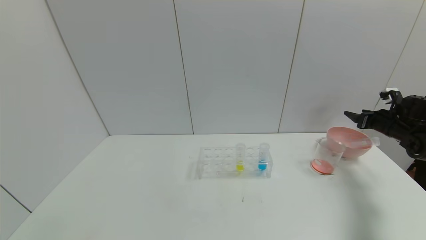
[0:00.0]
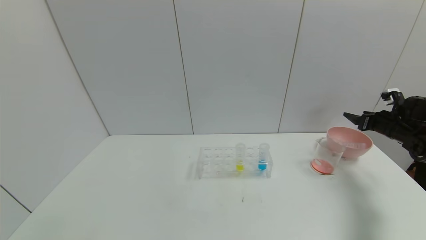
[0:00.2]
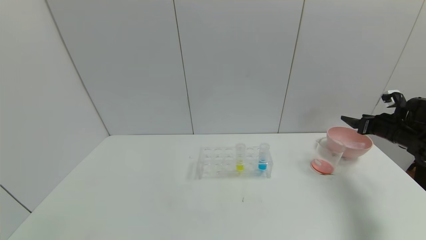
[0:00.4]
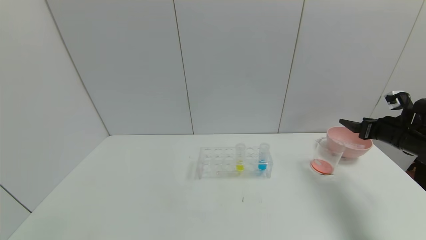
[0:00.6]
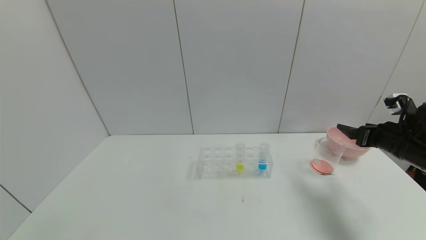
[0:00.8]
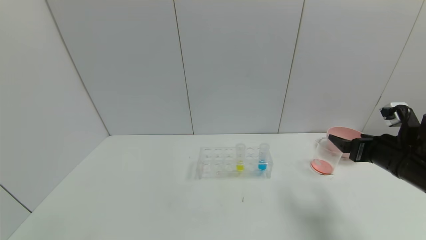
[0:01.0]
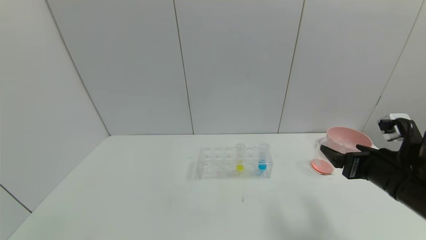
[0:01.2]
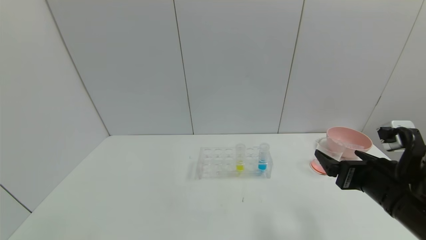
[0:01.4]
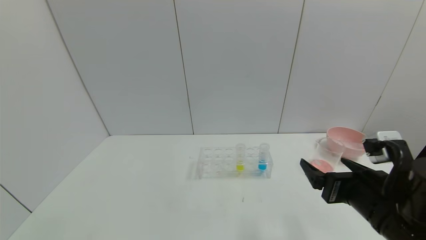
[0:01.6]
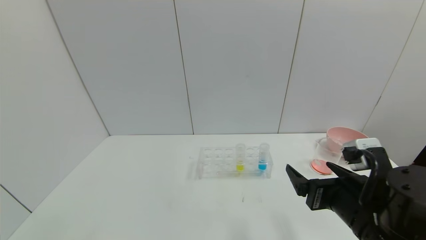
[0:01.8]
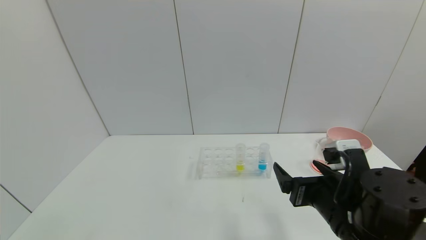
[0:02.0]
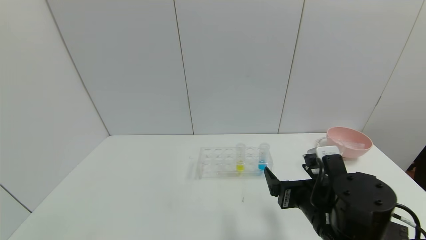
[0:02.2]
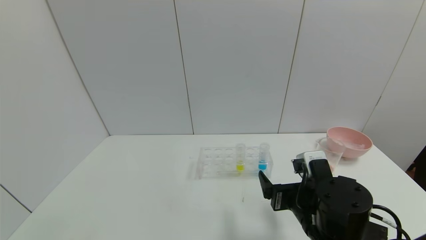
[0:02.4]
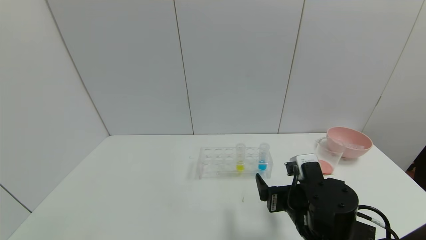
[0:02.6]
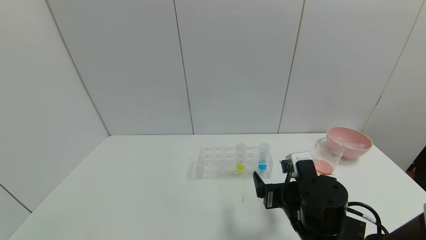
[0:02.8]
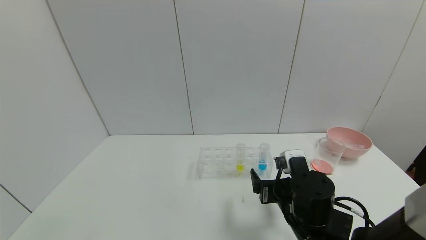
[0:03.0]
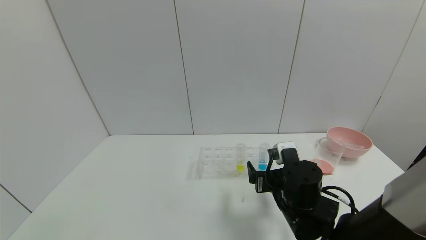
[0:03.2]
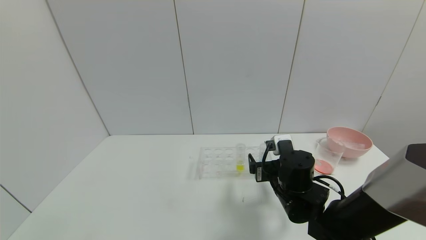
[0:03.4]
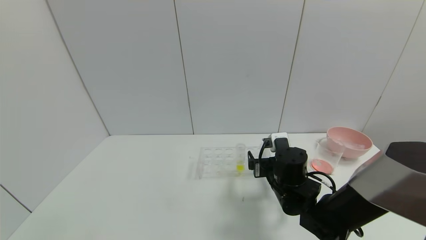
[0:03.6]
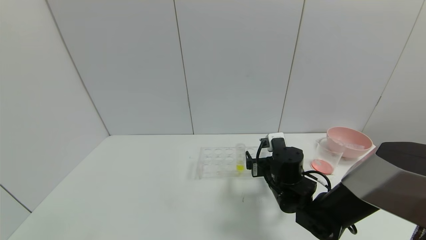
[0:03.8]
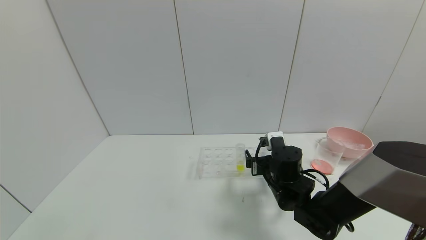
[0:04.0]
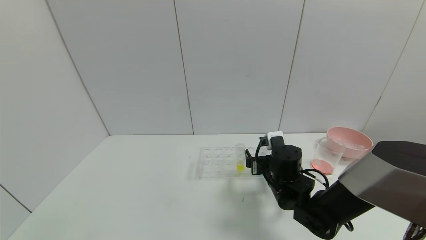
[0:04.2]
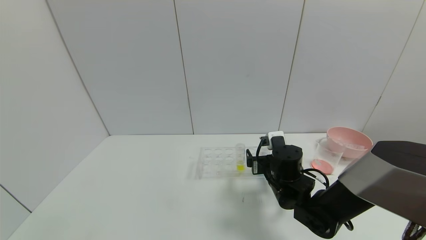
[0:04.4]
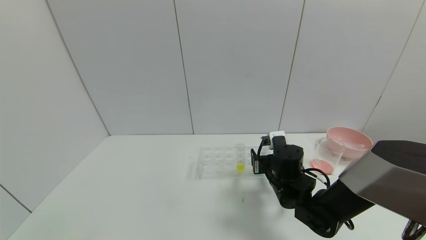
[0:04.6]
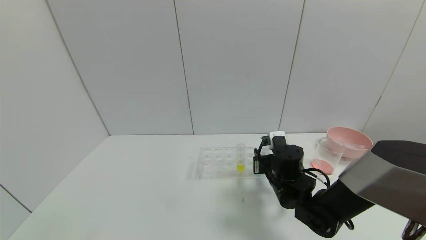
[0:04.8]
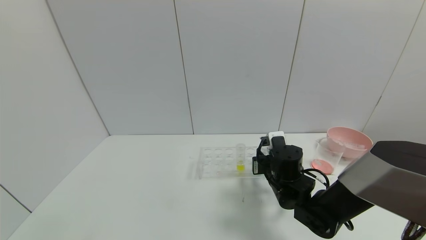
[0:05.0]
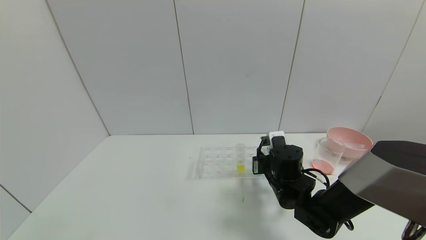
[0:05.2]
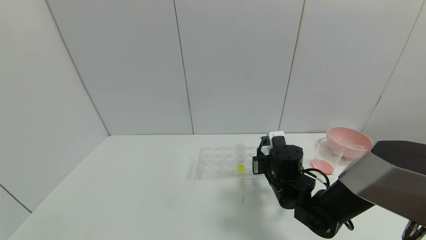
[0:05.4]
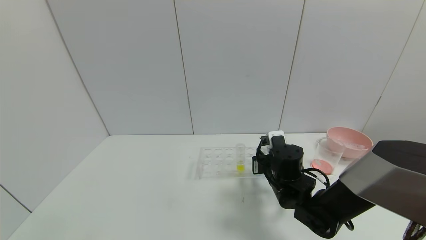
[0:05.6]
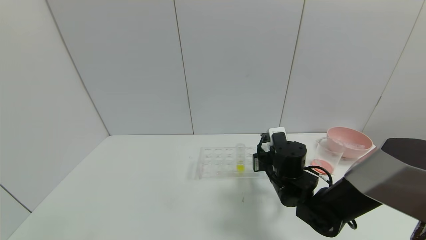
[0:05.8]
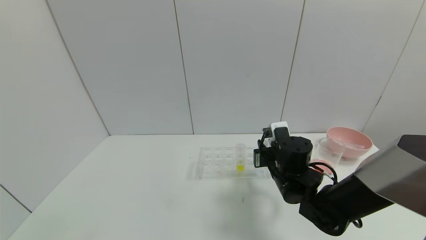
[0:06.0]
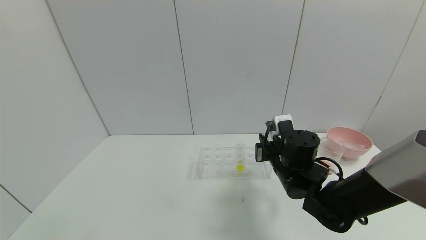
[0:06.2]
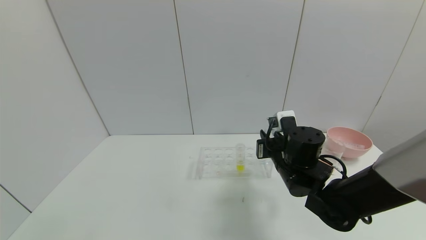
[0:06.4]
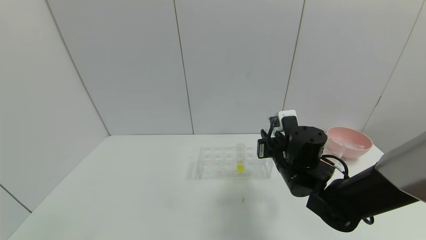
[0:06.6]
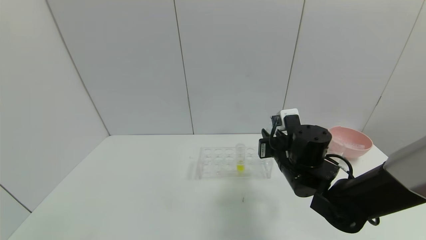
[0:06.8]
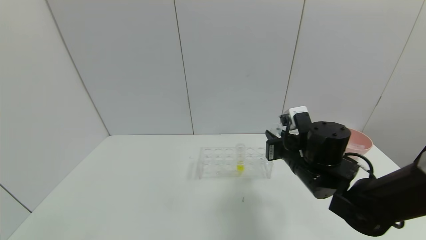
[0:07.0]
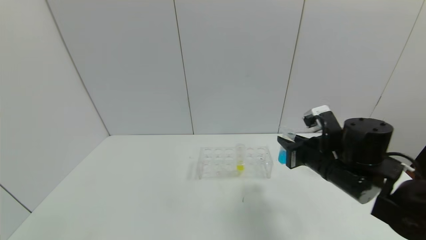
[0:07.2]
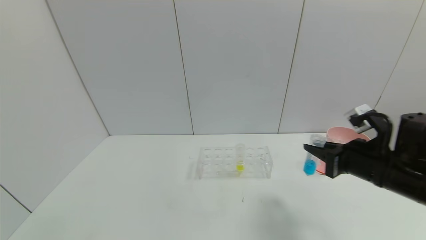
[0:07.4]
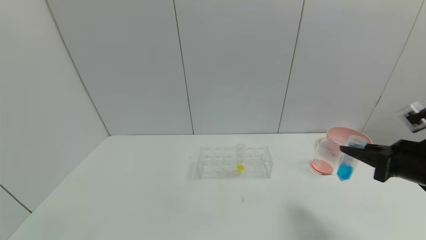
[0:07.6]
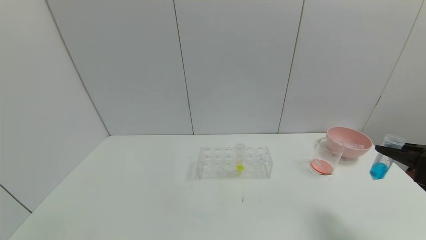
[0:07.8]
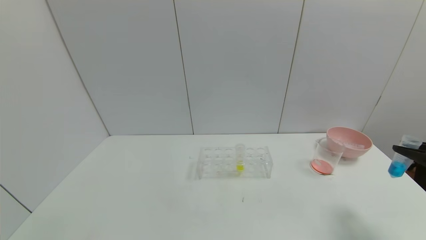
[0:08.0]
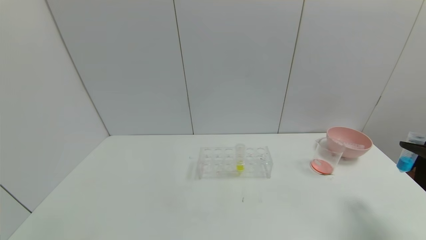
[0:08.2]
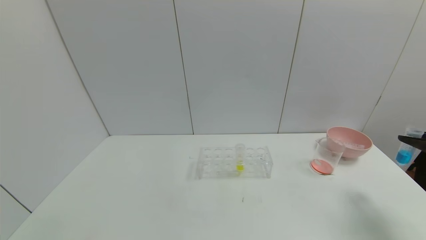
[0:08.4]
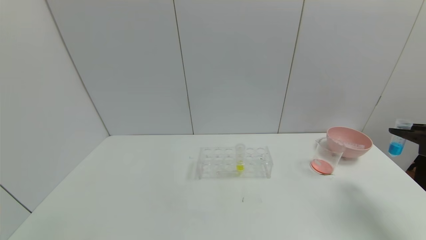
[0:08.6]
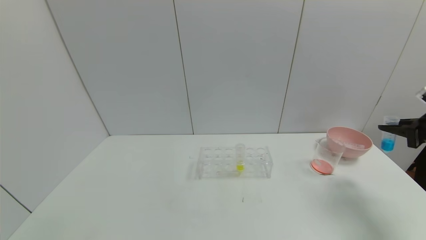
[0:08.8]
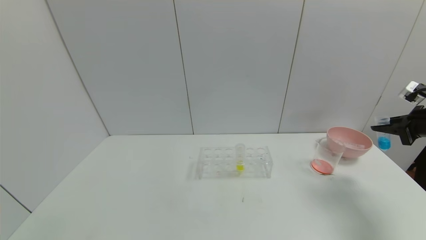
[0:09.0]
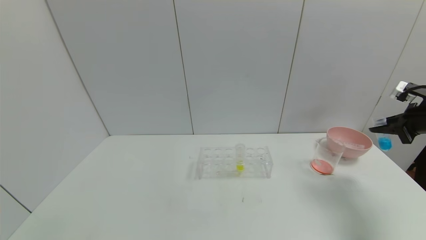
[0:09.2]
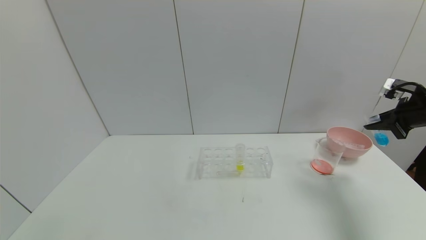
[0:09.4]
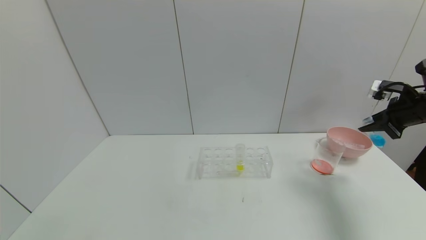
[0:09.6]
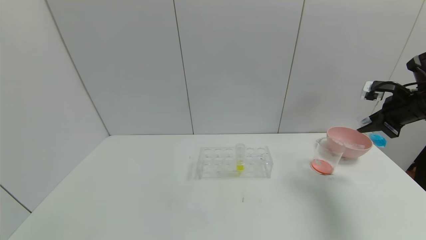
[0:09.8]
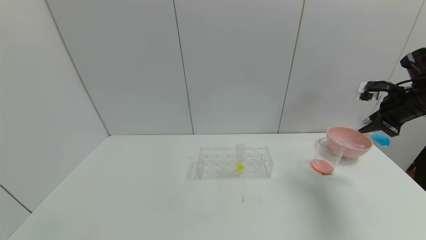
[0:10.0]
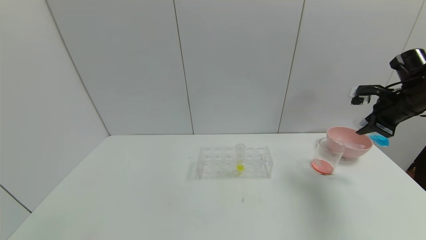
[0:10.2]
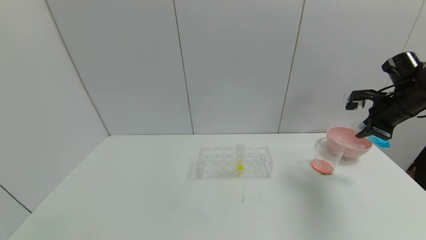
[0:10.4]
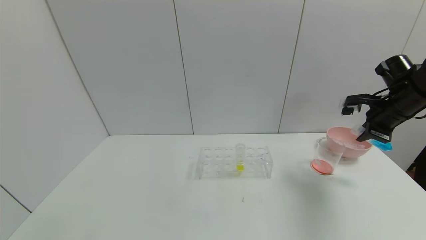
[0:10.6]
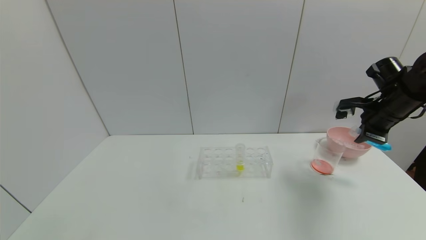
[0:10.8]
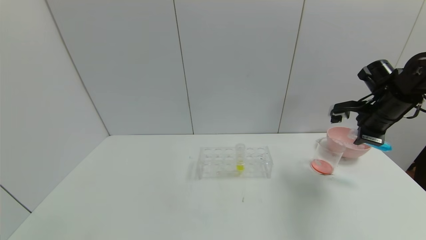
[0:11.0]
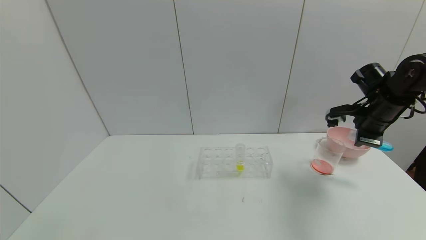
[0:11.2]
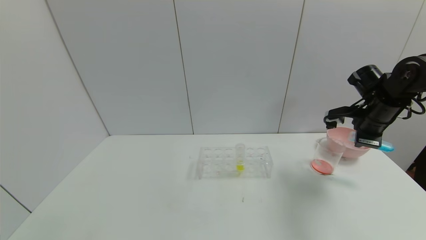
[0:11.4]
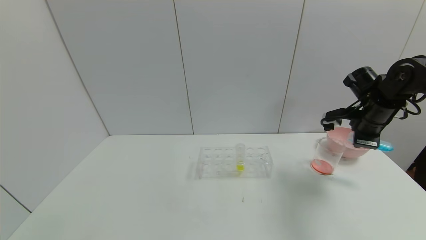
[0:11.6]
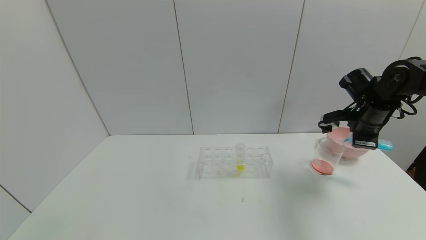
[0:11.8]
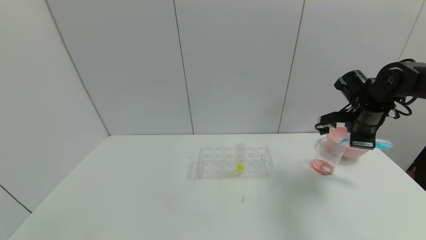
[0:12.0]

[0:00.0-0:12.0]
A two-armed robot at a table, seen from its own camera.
Task of the whole recording: pick up the test tube with red pigment and the test tube with blue pigment by grippers and pour them into the container.
Step, 0:00.4 to 0:05.2: Grasp the blue reagent with the right gripper.
0:00.0 to 0:01.6: The right gripper moves to the left and backward, about 35 cm.
0:01.6 to 0:03.0: The right gripper shifts about 15 cm to the left, downward and forward.
0:03.0 to 0:04.4: The right gripper is displaced forward by about 10 cm.
0:04.4 to 0:06.0: The right gripper closes.
0:06.0 to 0:07.6: The right gripper is displaced to the right, backward and upward by approximately 25 cm.
0:07.6 to 0:09.0: The right gripper is displaced to the right and forward by some 15 cm.
0:09.0 to 0:10.4: The right gripper goes roughly 10 cm to the left and forward.
0:10.4 to 0:12.0: The right gripper shifts about 5 cm to the left.

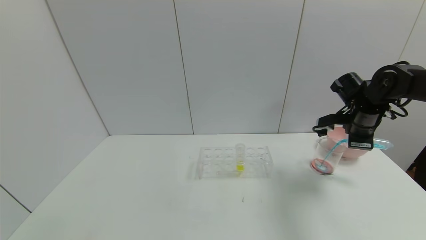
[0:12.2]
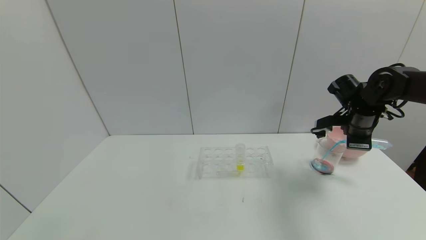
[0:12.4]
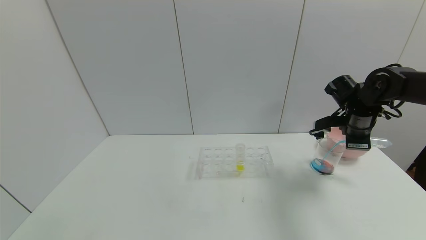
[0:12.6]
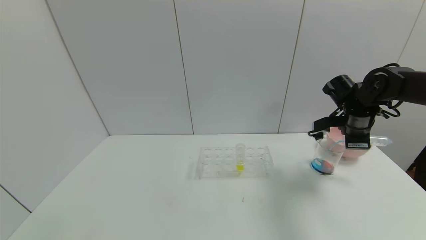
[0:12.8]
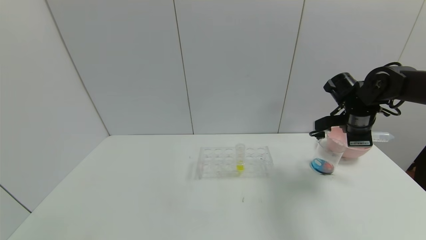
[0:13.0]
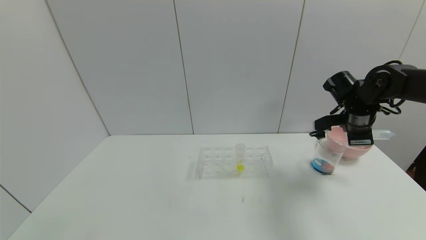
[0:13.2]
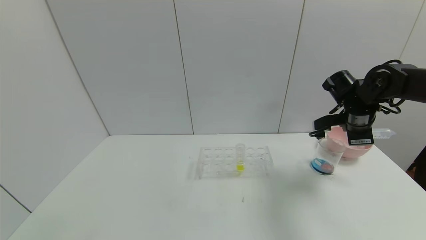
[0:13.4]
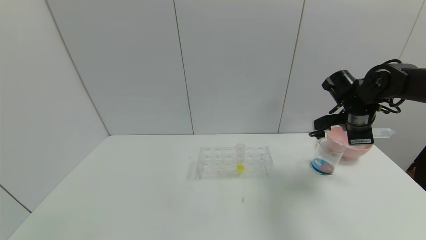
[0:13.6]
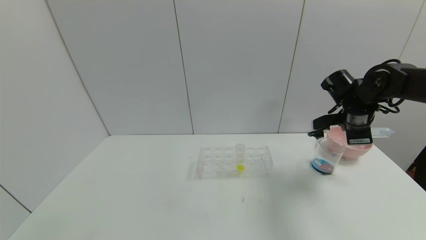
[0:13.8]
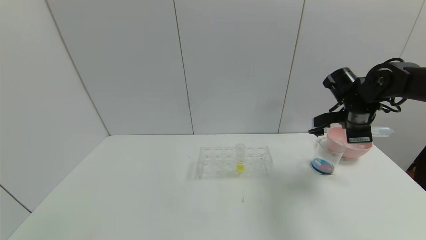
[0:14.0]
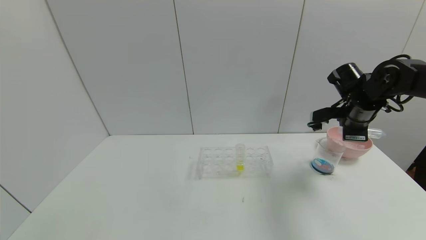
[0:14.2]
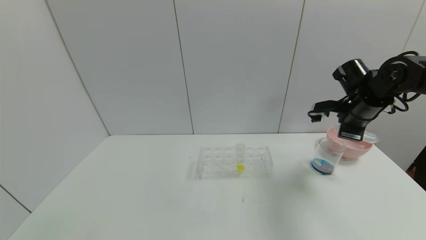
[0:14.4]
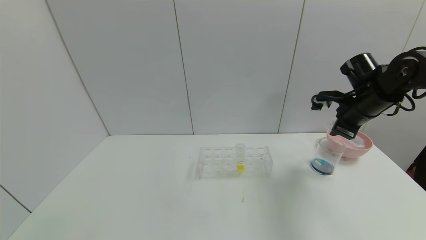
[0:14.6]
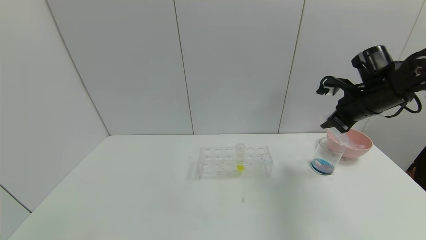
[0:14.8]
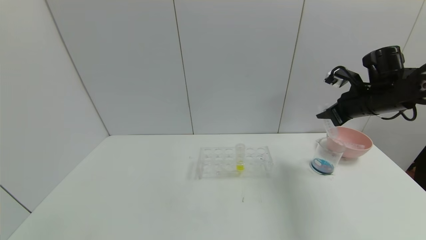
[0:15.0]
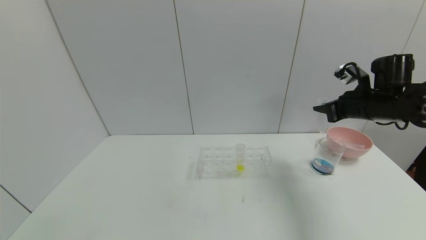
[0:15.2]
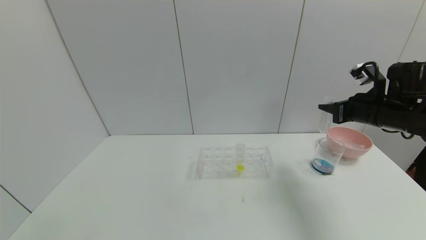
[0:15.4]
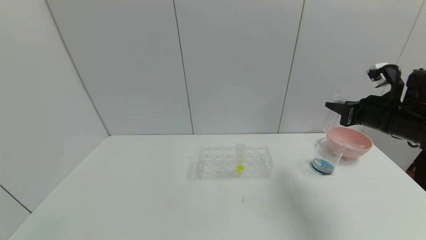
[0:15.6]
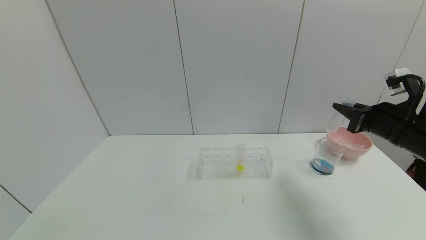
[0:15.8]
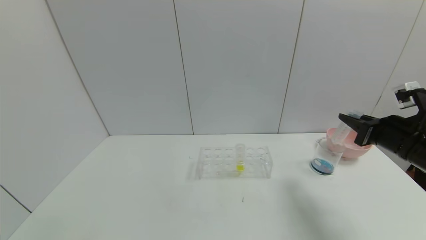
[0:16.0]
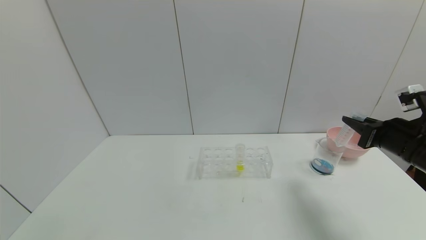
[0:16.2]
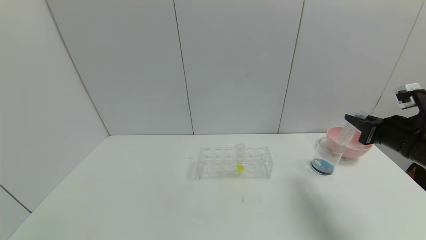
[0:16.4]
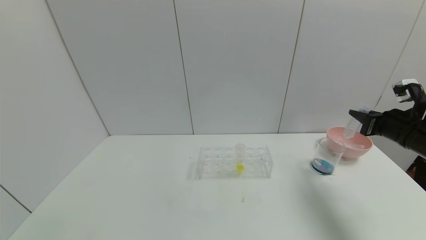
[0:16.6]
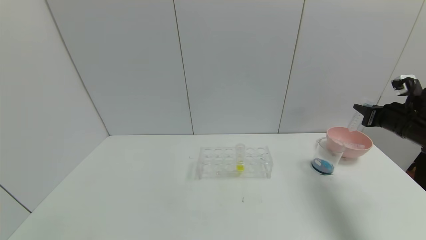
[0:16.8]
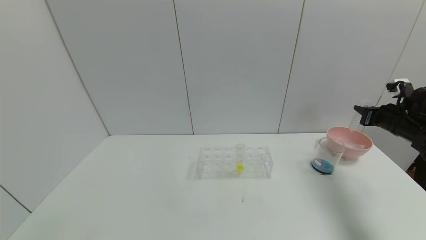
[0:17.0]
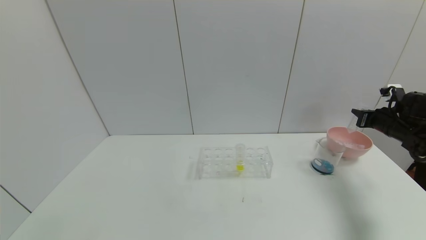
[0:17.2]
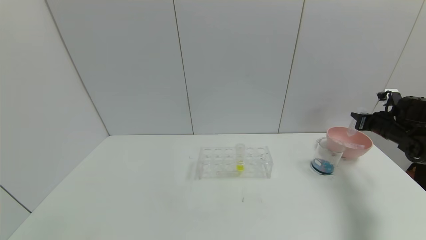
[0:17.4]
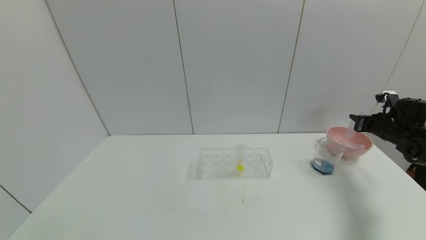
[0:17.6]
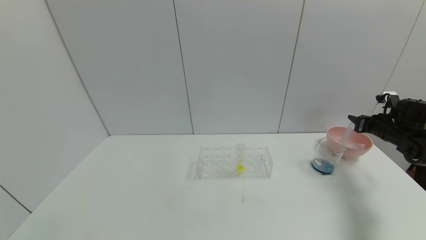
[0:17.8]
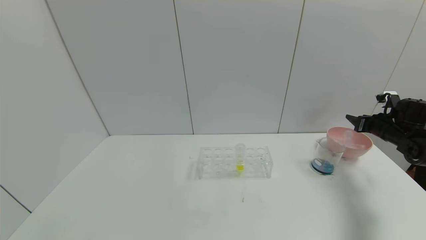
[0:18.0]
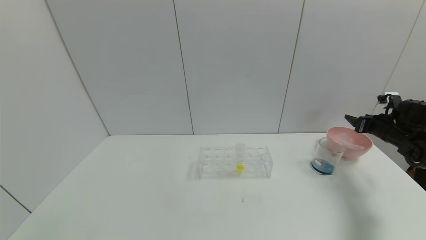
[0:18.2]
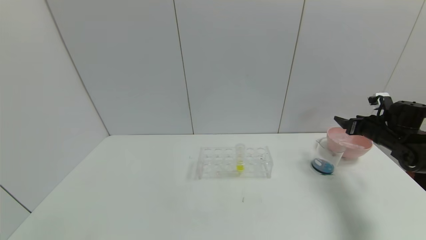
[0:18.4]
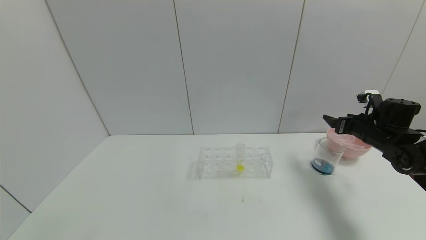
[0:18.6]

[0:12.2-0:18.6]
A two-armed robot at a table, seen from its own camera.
Task of the whole recording: pick up the test tube with red pigment and the test tube with blue pigment by grippers and pour them into the container.
Step, 0:13.4 to 0:18.0: Place the test tube into the bowl with the right gripper.
0:12.2 to 0:13.8: The grippers move only a little.
0:13.8 to 0:15.4: The right gripper changes place by roughly 5 cm.
0:15.4 to 0:17.0: The right gripper moves to the right and downward, some 10 cm, and reaches some 10 cm backward, then returns.
0:17.0 to 0:18.6: The right gripper shifts approximately 5 cm to the left, and opens up.
